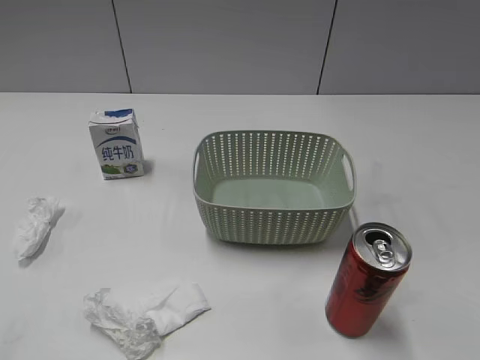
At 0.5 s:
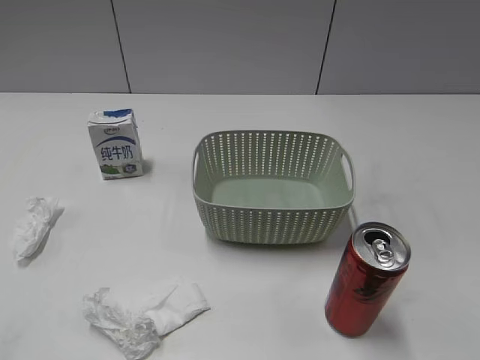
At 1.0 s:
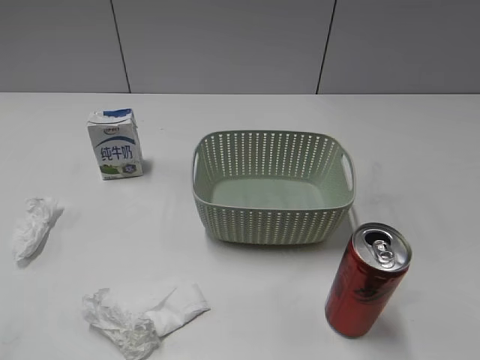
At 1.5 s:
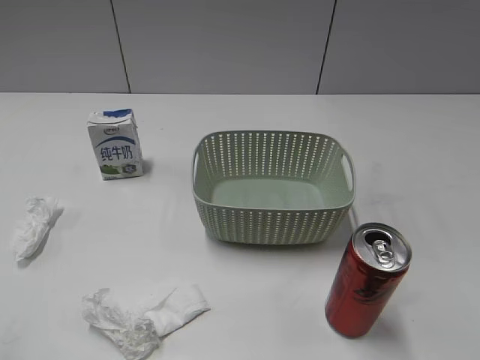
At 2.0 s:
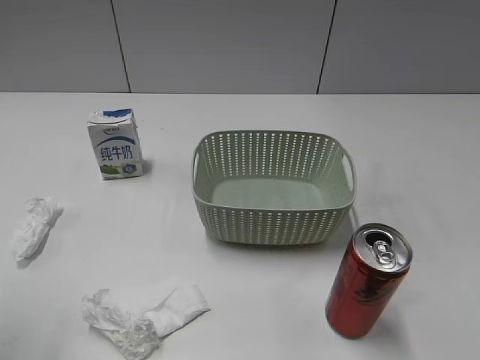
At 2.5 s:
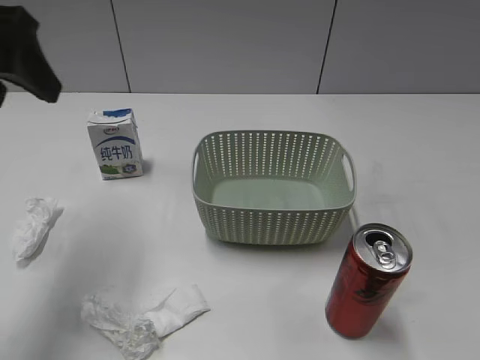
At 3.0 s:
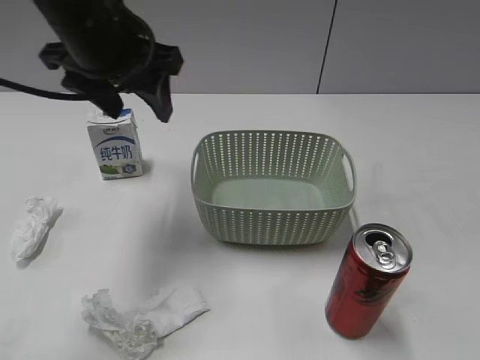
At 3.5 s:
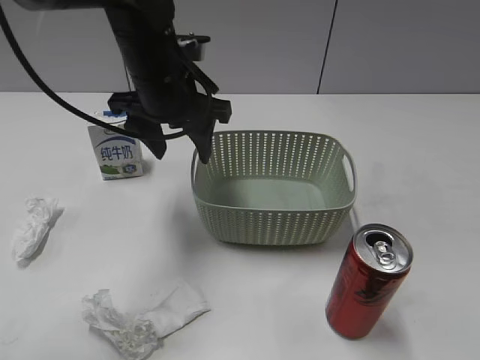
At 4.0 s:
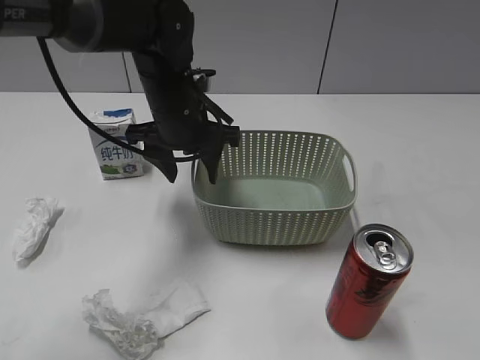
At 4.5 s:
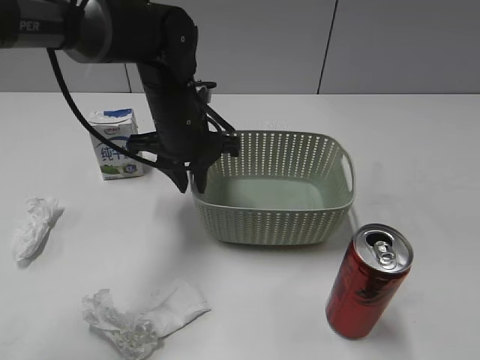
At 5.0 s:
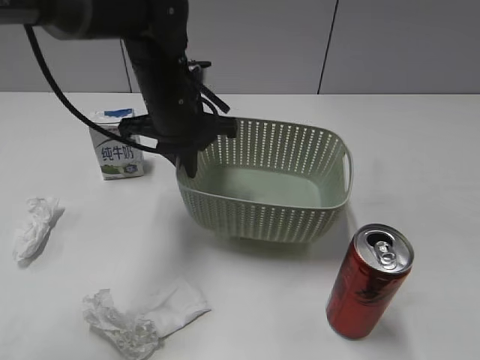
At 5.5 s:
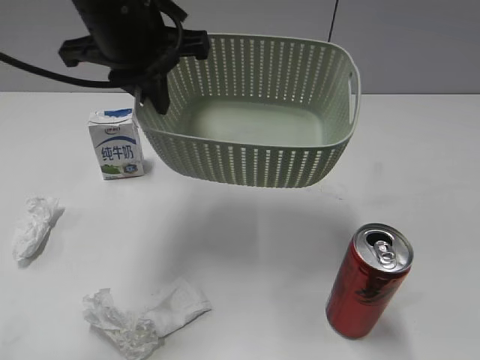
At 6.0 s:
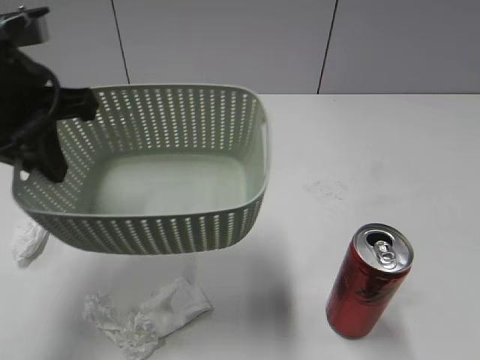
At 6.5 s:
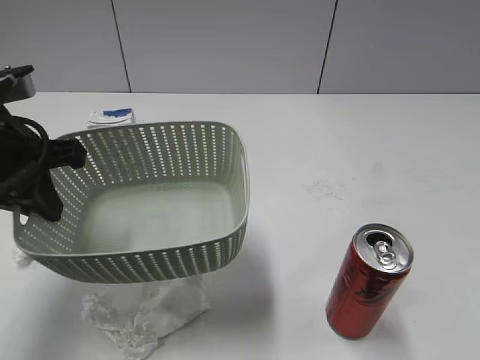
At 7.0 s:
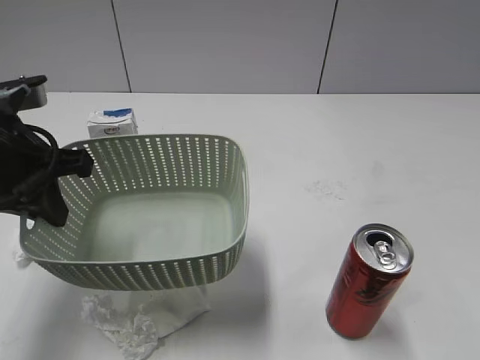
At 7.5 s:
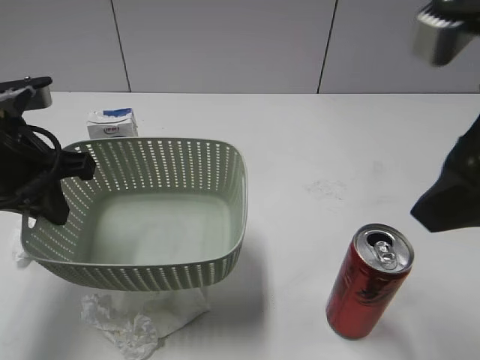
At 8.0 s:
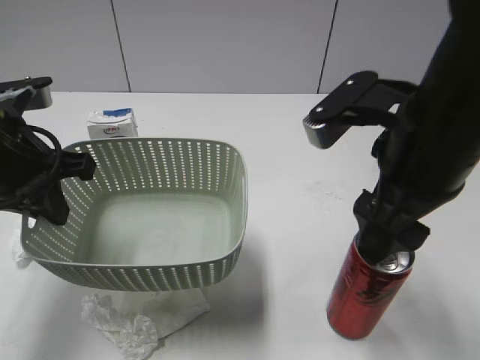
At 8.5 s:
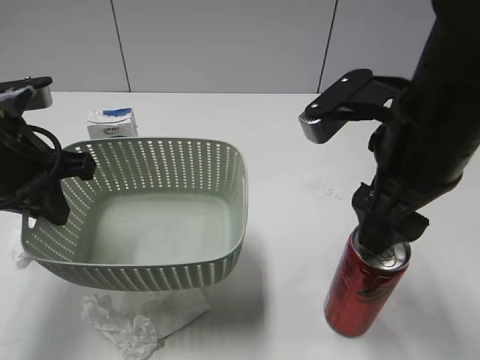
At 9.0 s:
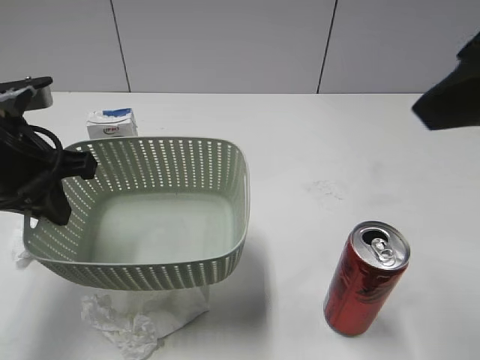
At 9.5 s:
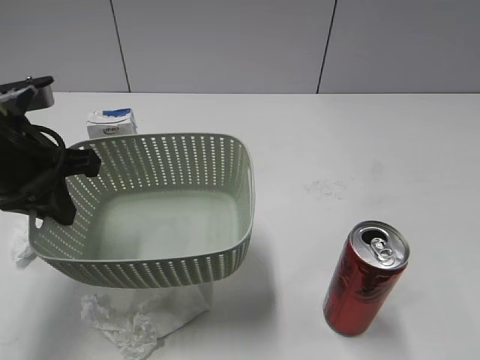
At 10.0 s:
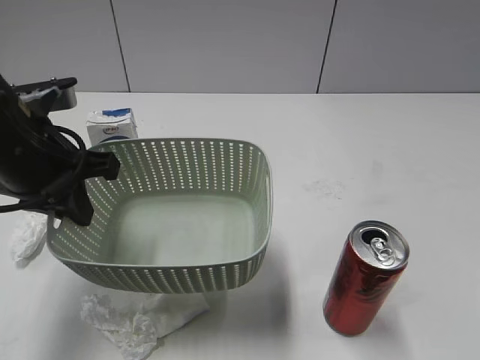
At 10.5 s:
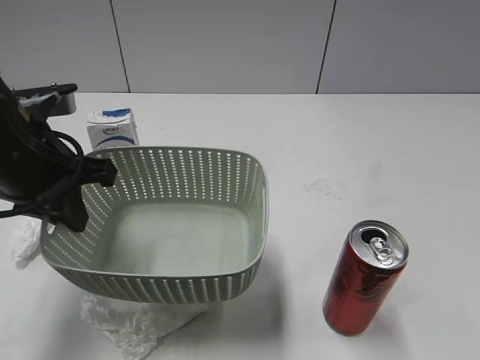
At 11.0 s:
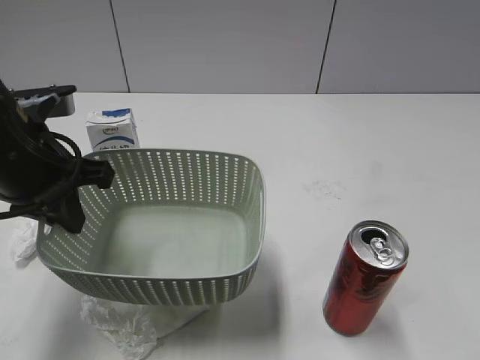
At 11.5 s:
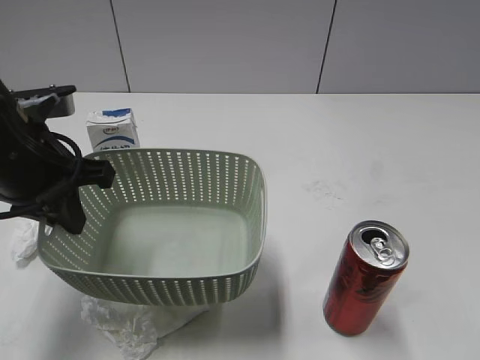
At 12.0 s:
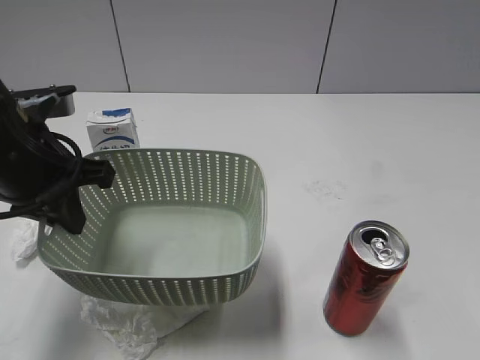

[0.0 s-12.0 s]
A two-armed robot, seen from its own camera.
Step, 2.5 to 4.5 s: Grasp the basket with left gripper.
Step, 5.0 to 7.0 s: Lift the basket with left gripper.
2.0 to 4.0 s: The left gripper moves forward, to the right and downward, some 35 cm.
4.0 to 6.0 s: The left gripper goes roughly 20 cm to the left, backward and upward, and closes its fingers.
6.0 to 8.0 s: The right gripper goes about 25 cm forward and to the left; the left gripper travels downward by about 5 cm.
8.0 to 10.0 s: The right gripper heads backward and to the right, covering about 30 cm.

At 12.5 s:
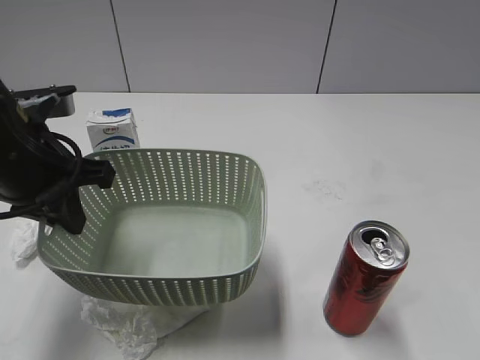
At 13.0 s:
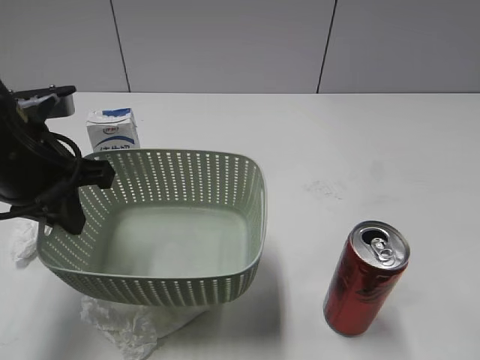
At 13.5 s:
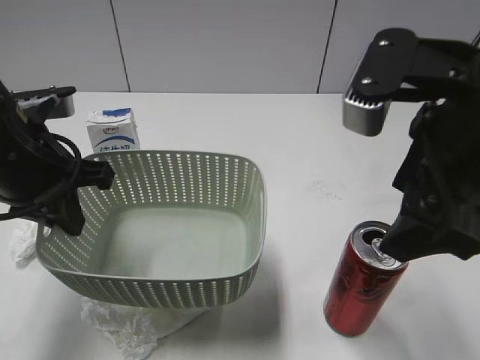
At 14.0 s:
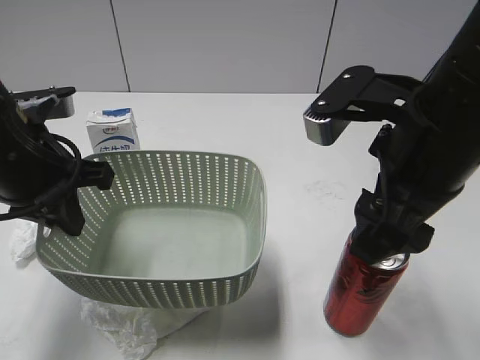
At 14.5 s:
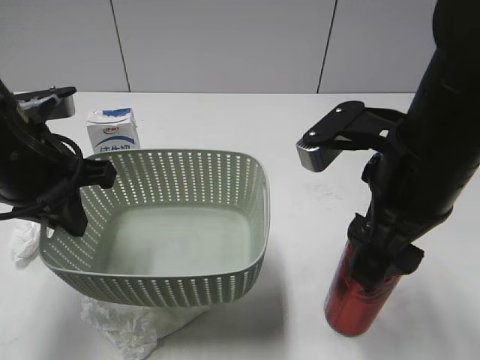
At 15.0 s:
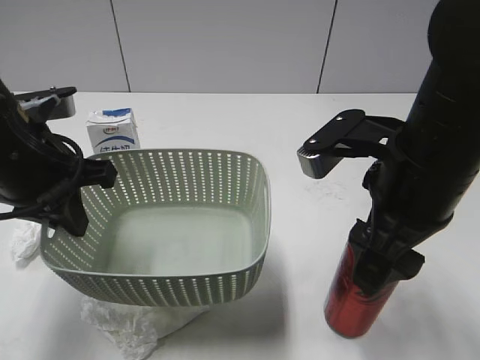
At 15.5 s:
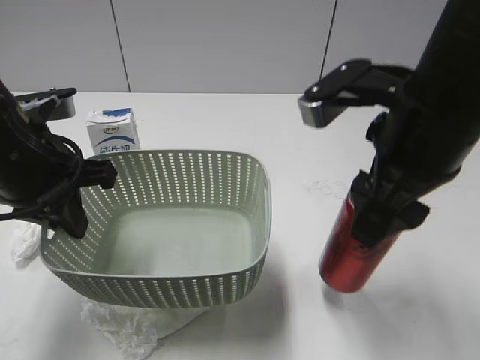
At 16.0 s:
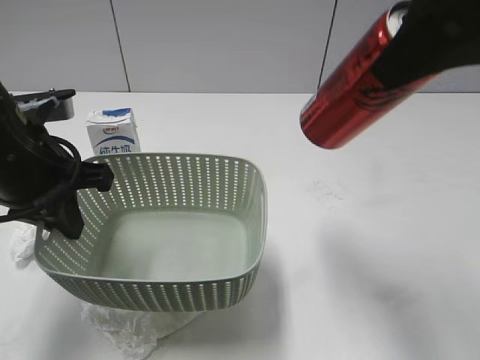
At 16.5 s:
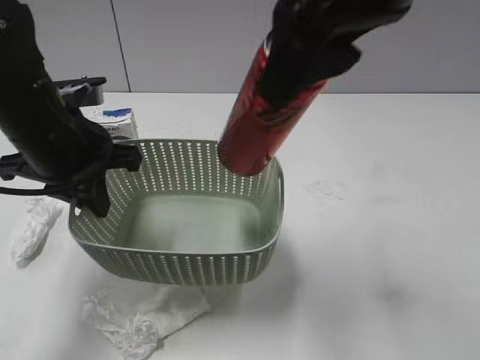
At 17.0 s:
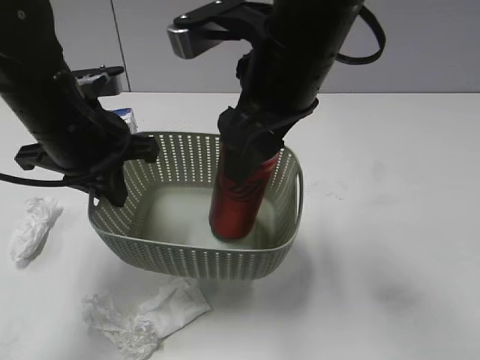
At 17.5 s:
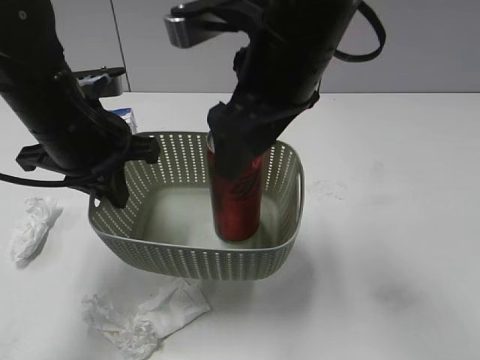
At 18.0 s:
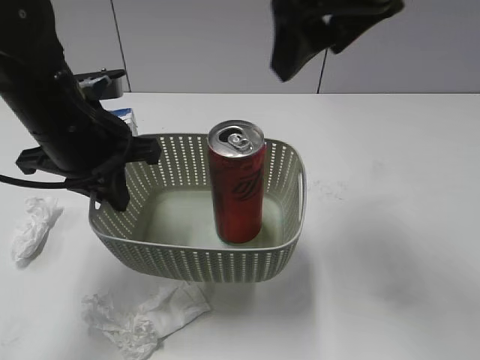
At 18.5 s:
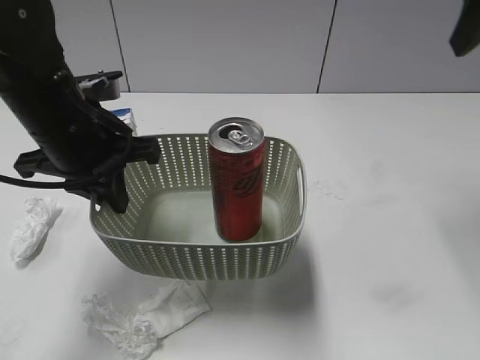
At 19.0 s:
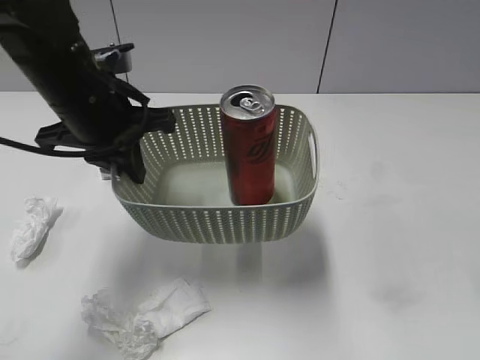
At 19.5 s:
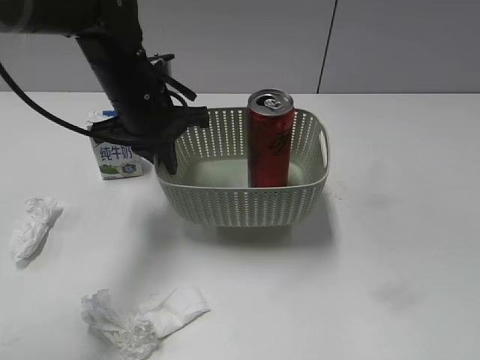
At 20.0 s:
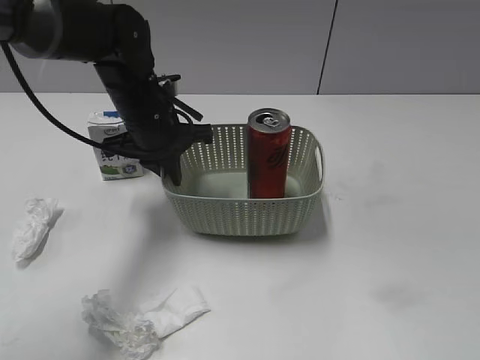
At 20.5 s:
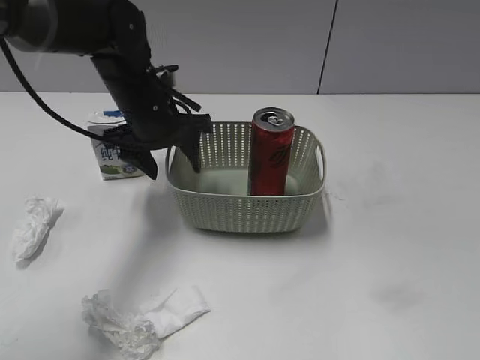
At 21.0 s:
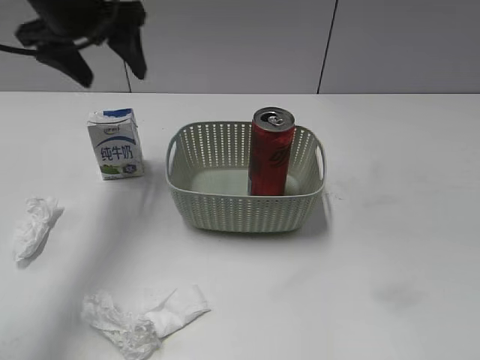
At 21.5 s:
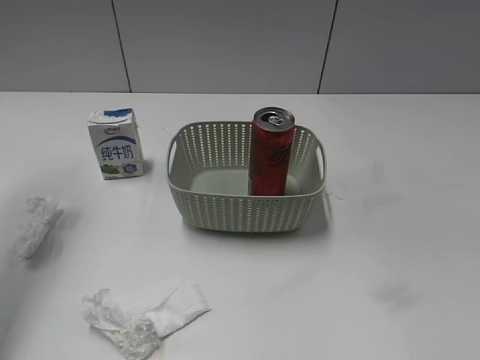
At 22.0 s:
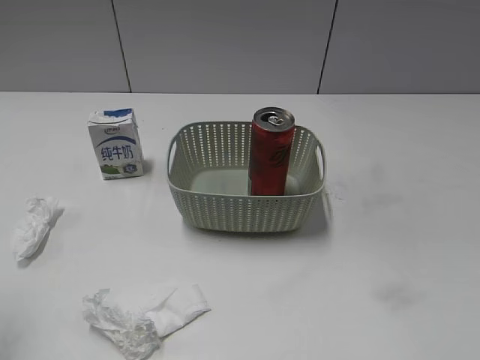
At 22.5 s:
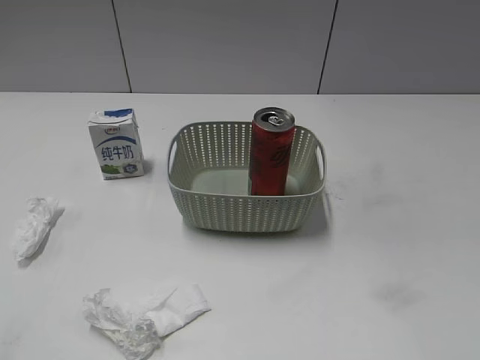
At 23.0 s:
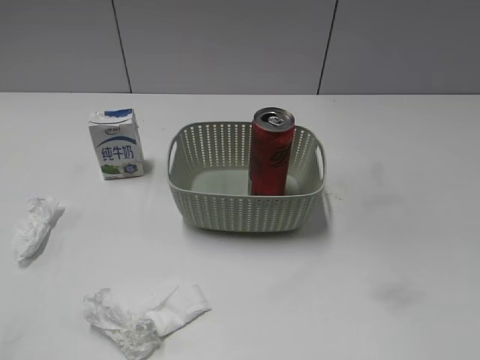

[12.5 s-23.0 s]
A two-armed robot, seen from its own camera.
Step, 12.5 to 15.0 s: Grasp the cola can with right gripper.
Step, 15.5 to 17.5 s: Place the cola can in the basket with right gripper.
Step, 18.0 to 20.0 s: Place the basket on the table with left gripper.
12.5 to 14.5 s: The right gripper goes some 25 cm to the left, forward and downward.
14.5 to 16.5 s: The right gripper shifts roughly 15 cm upward, and closes.
16.5 to 19.0 s: The right gripper is displaced to the right by approximately 20 cm, and opens its fingers.
19.0 to 21.0 s: The left gripper shifts approximately 10 cm forward and upward, and opens. Meanwhile the right gripper is displaced backward and downward by about 20 cm.
21.0 to 23.0 s: The left gripper travels backward by about 40 cm.

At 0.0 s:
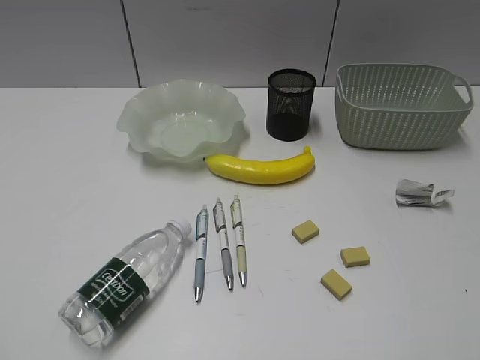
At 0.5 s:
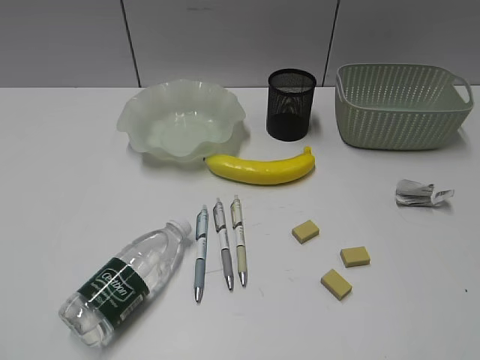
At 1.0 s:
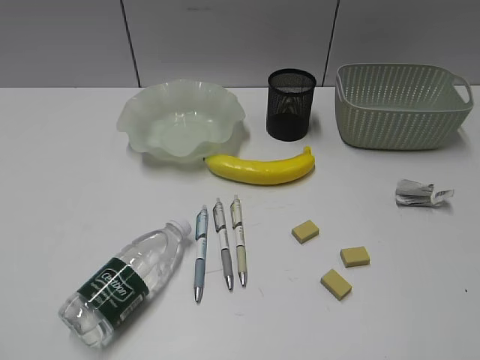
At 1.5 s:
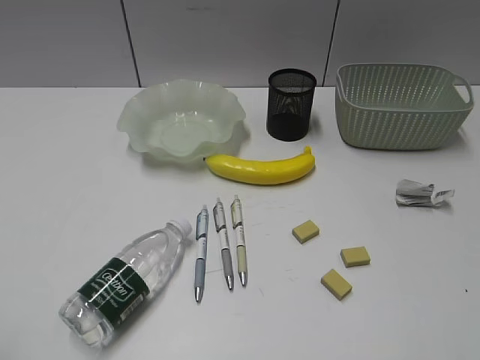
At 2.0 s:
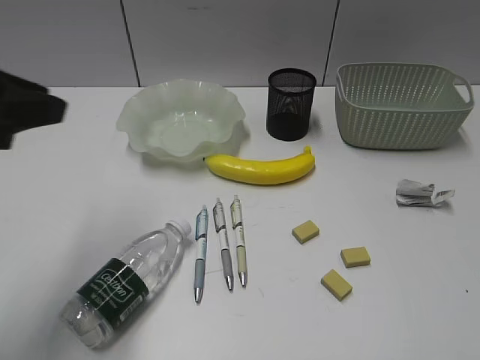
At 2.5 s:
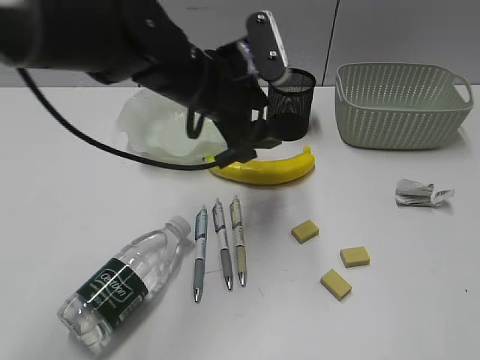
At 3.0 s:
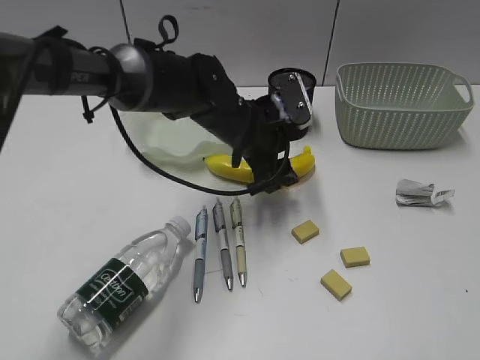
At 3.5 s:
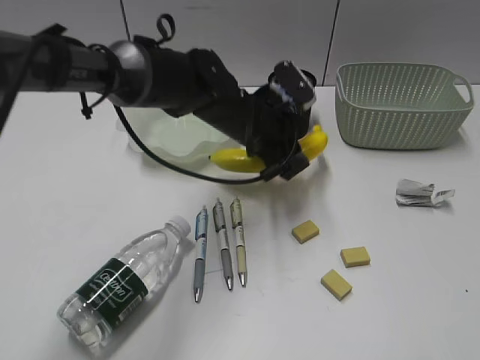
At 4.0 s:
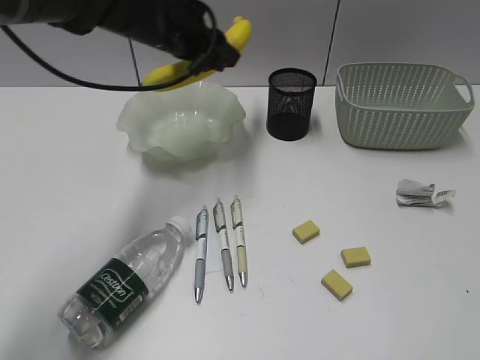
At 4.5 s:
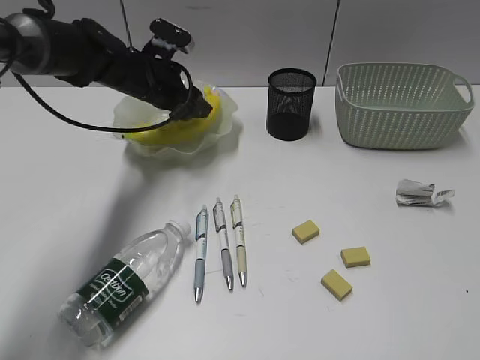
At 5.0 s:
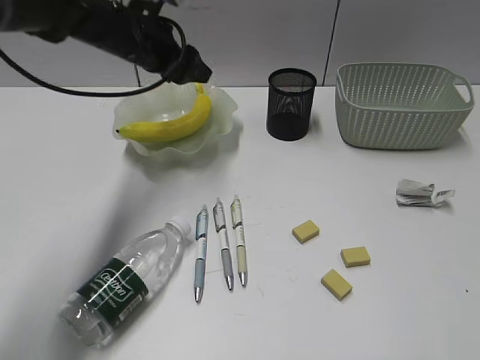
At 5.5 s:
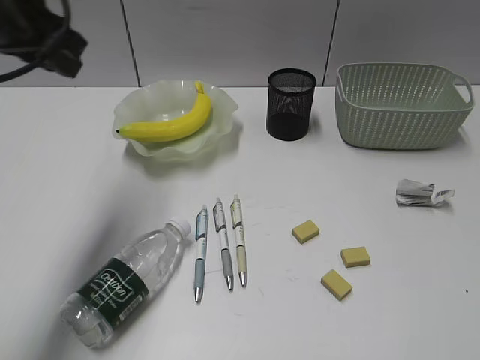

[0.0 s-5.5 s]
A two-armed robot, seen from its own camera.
Step, 0.0 to 3.0 s: Grasp the banana with left gripper.
Step, 3.5 to 5.0 s: Place the banana in the plate with left gripper.
2.0 to 3.5 s: The left gripper travels to the right, forward and downward by roughly 35 cm, and opens, then closes again.
3.5 to 5.5 s: The left gripper is displaced to the left and upward by some 30 cm.
